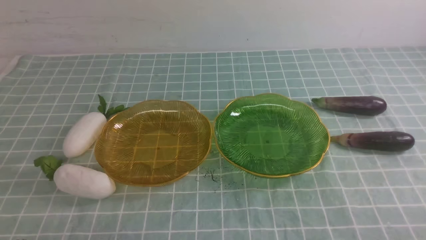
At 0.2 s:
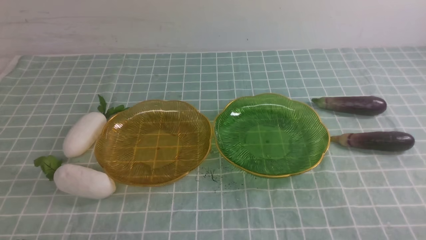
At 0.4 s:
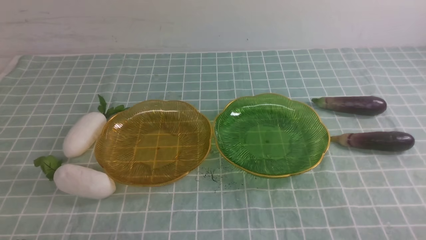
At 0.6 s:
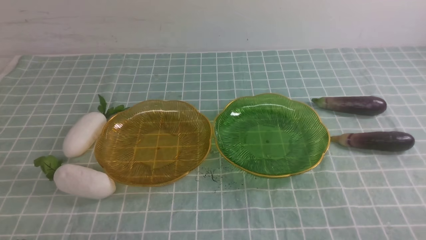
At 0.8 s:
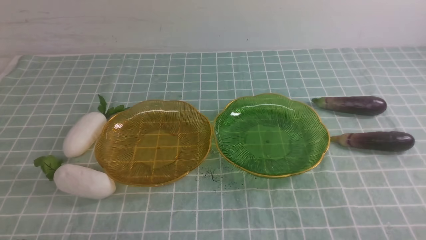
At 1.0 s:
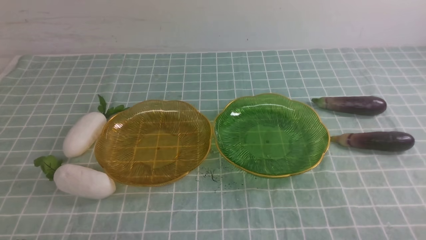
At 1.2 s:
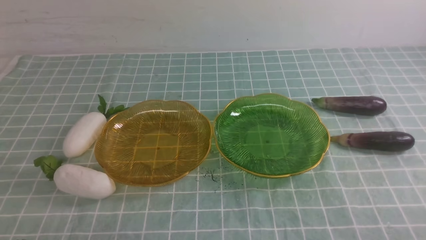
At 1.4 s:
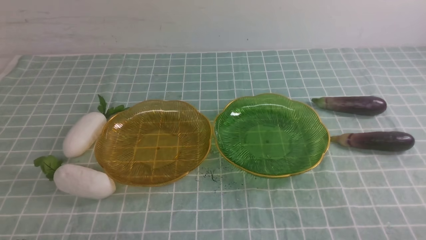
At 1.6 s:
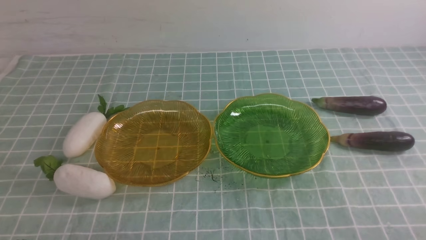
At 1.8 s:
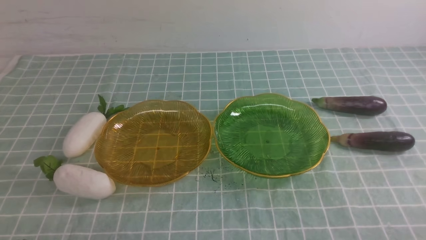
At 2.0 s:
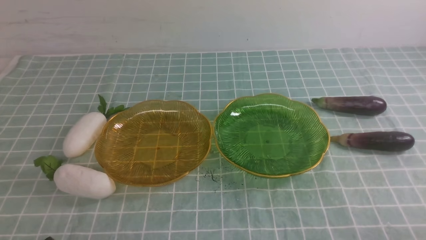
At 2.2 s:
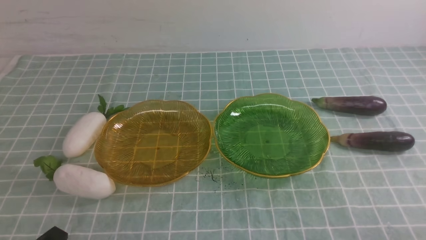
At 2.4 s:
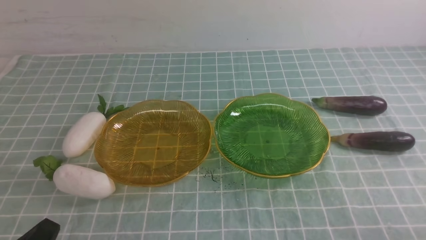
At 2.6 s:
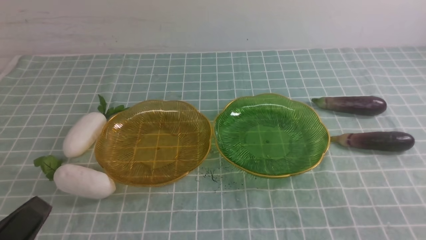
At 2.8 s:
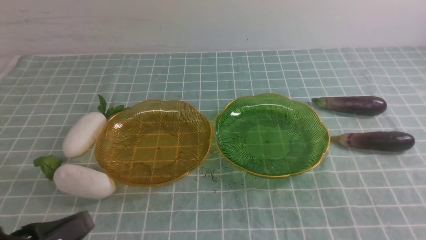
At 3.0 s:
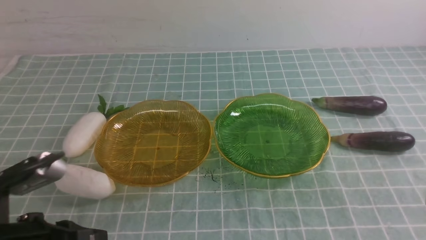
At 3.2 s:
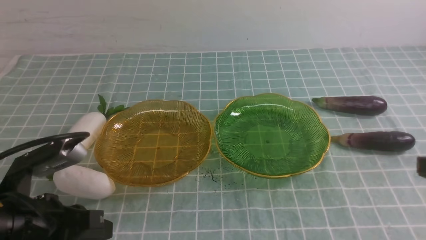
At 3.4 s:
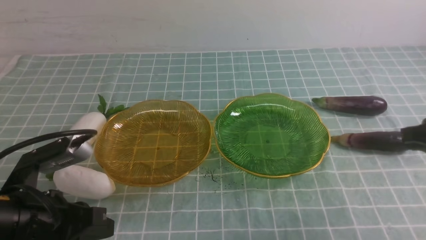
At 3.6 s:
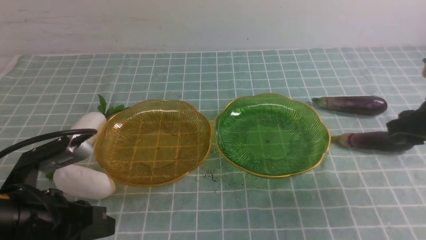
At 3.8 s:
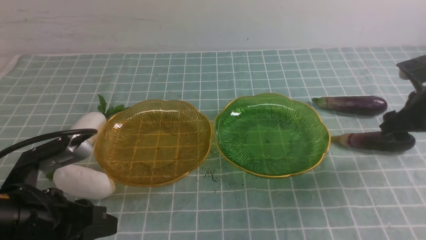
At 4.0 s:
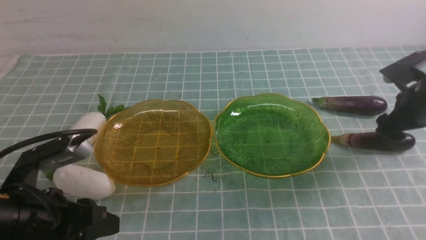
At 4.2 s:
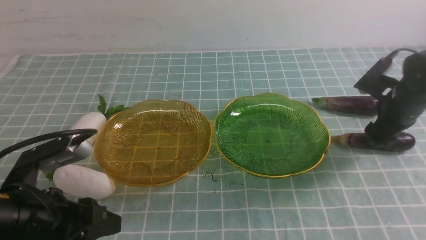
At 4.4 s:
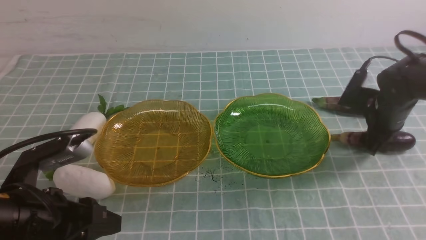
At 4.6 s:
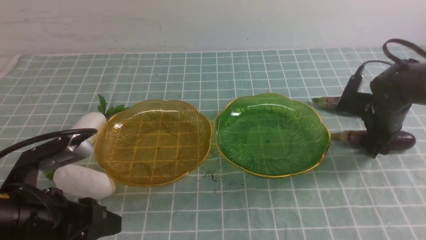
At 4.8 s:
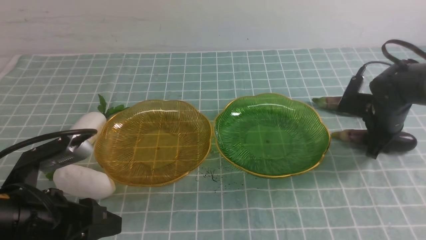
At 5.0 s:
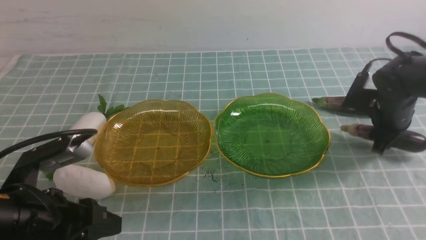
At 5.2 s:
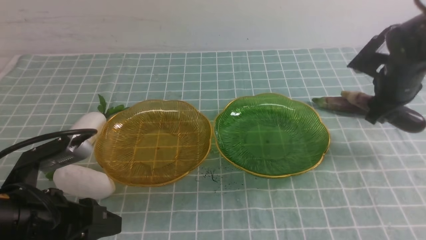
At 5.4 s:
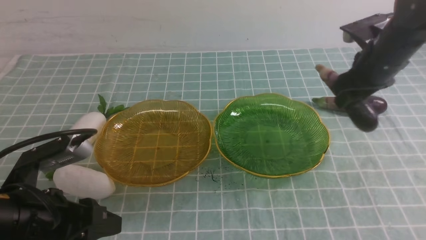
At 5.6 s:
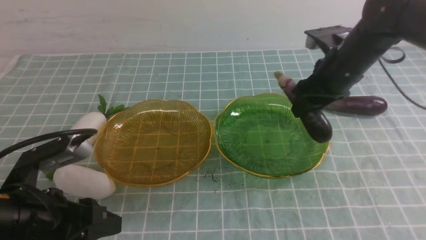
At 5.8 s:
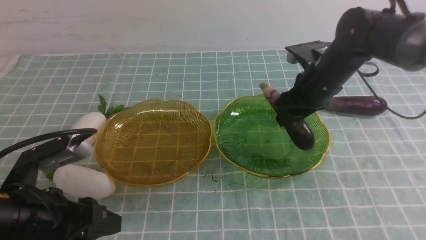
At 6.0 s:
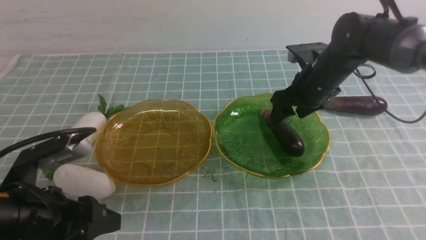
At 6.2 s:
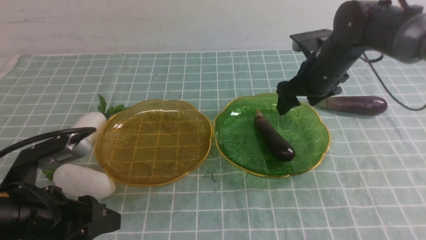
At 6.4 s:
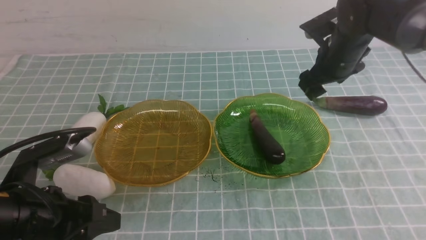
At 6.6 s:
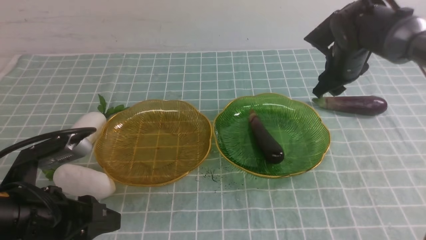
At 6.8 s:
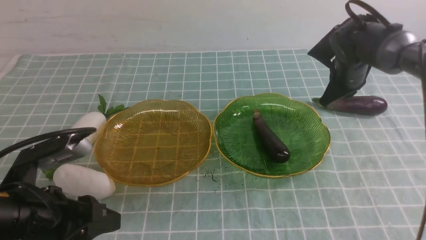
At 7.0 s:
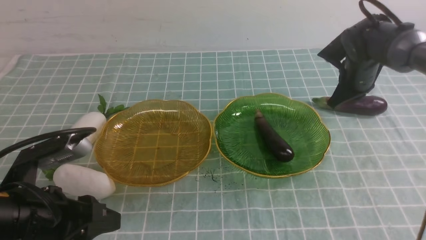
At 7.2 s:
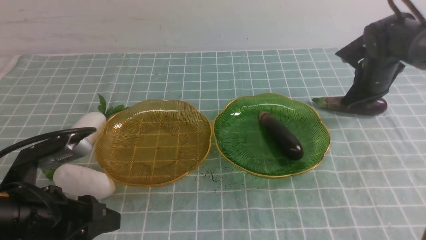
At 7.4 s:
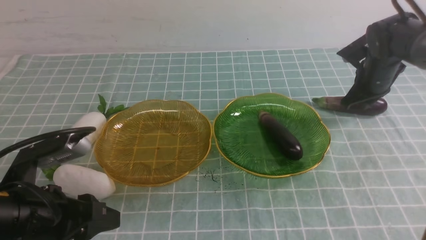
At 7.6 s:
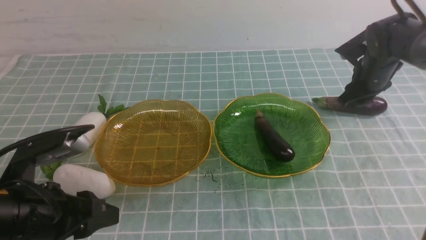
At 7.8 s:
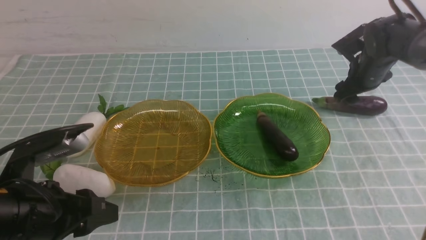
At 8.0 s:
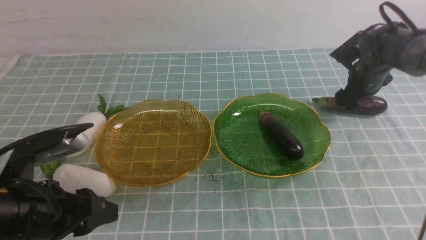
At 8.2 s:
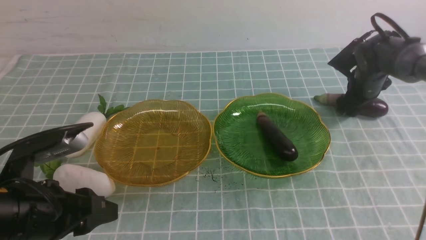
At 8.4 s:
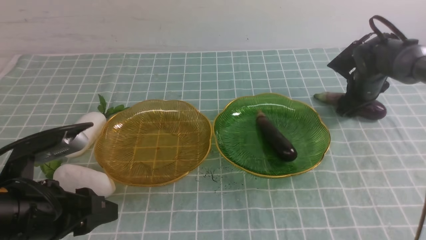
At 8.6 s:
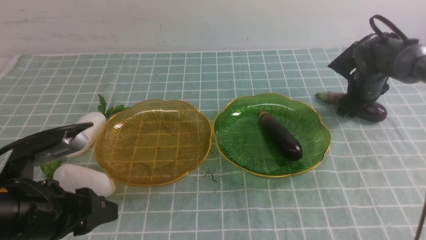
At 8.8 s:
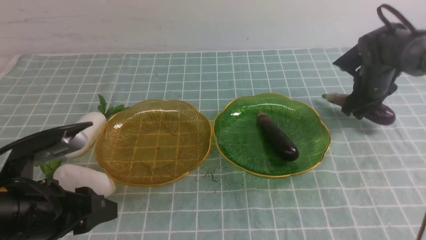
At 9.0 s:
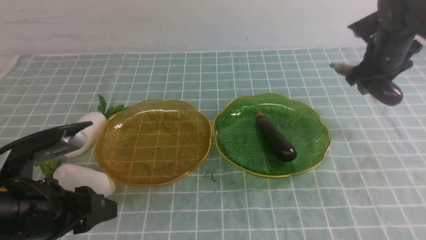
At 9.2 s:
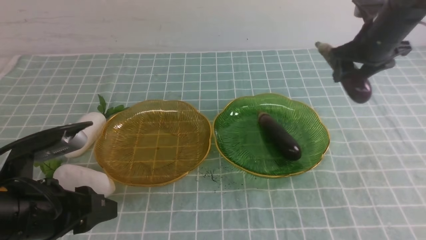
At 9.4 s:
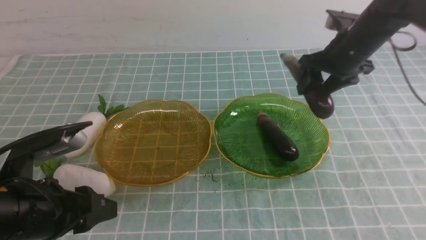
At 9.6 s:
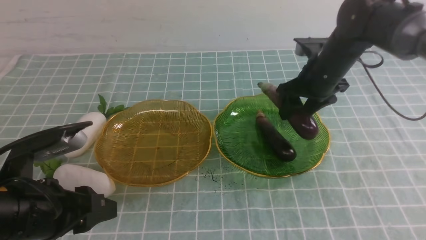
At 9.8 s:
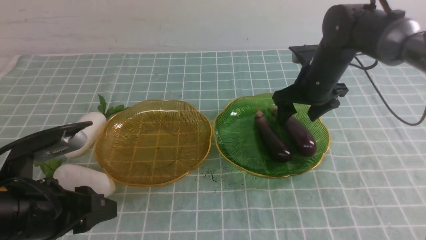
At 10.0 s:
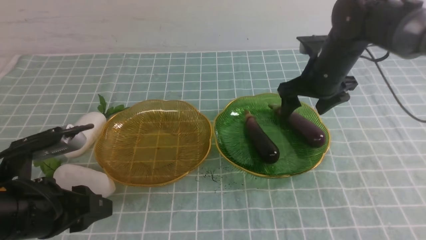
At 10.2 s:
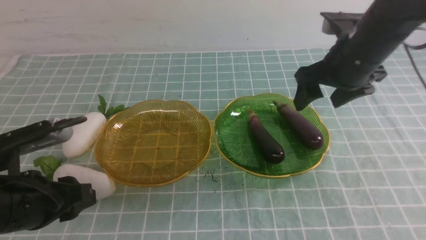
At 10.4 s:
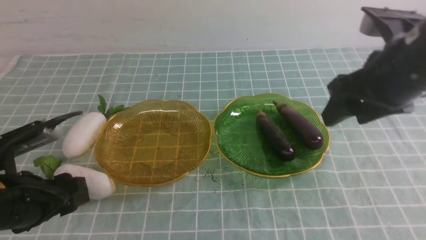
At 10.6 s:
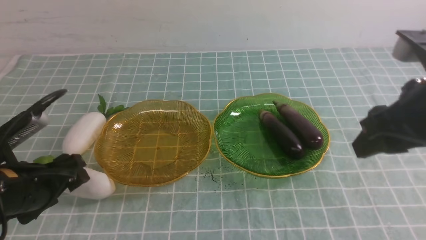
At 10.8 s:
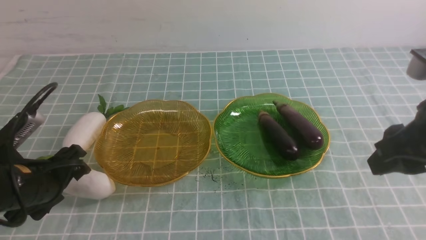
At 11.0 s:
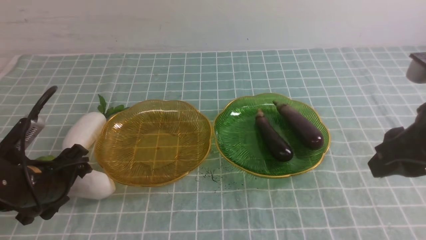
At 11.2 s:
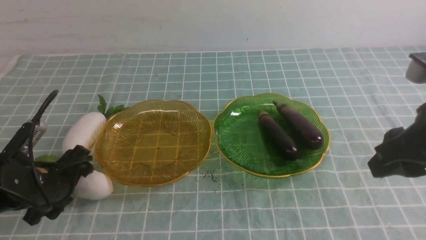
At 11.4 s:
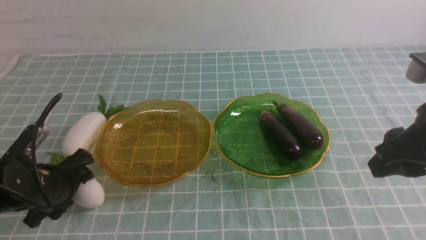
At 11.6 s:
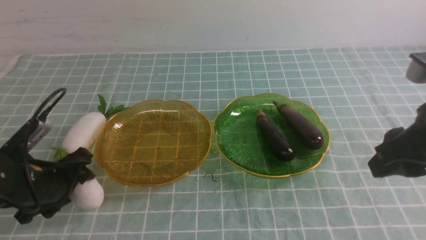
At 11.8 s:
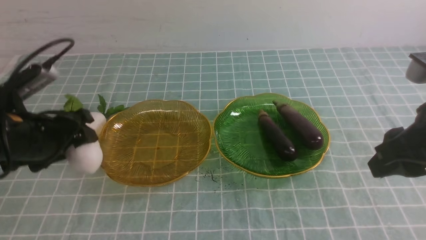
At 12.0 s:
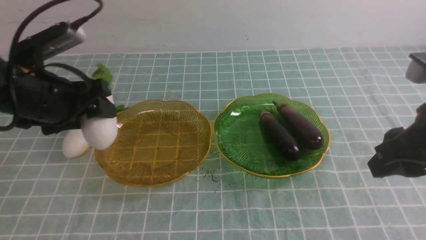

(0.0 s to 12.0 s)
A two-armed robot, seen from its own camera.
Step, 0.0 s - 9.8 s: use the right arm to grab an eggplant and put it into the right plate.
1.6 s - 3.0 s: The left gripper heads upward, covering about 10 cm.
3.0 s - 4.4 s: The right gripper travels forward by some 30 cm, and opens its fingers. Meanwhile the left gripper heads forward, covering some 5 cm, and opens its fingers.
4.4 s - 6.0 s: The right gripper heads to the left and upward, covering about 15 cm.
6.0 s - 7.6 s: The right gripper heads to the right and forward, covering some 15 cm, and closes up.
7.6 s - 9.0 s: The right gripper moves about 5 cm.
9.0 s - 10.4 s: The right gripper moves backward, upward and to the left, about 20 cm.
10.4 s - 12.0 s: The right gripper goes about 10 cm backward, while the left gripper shifts about 15 cm forward.

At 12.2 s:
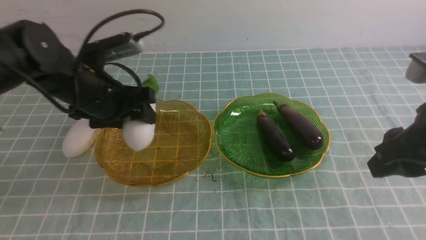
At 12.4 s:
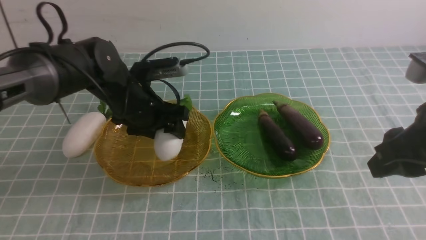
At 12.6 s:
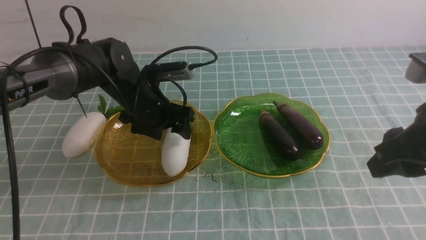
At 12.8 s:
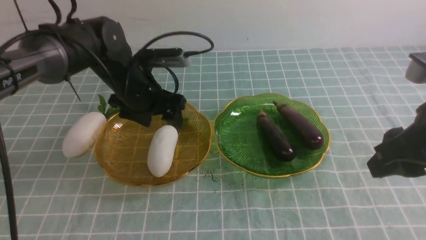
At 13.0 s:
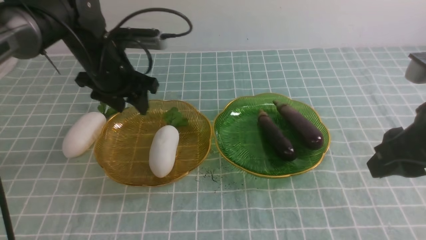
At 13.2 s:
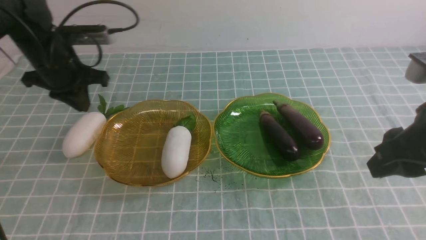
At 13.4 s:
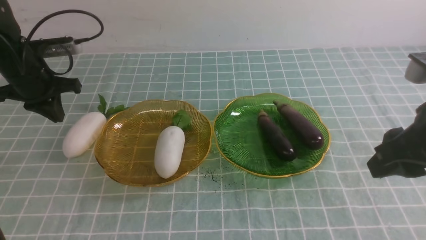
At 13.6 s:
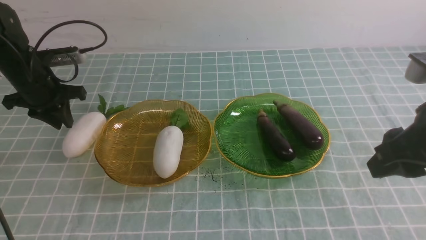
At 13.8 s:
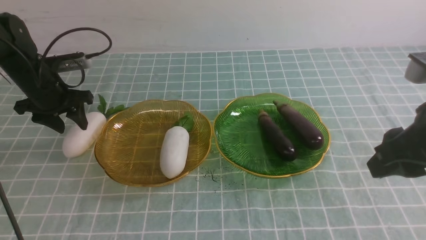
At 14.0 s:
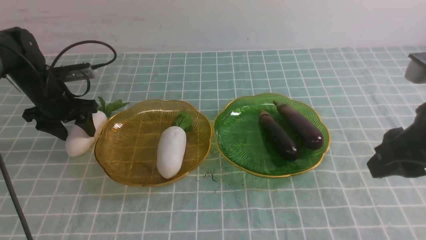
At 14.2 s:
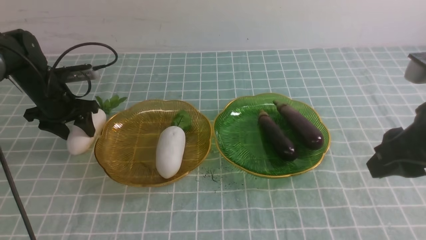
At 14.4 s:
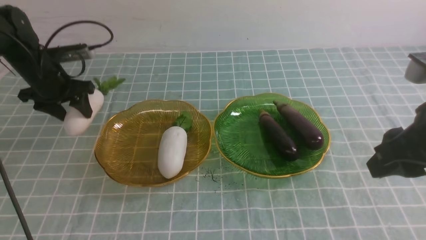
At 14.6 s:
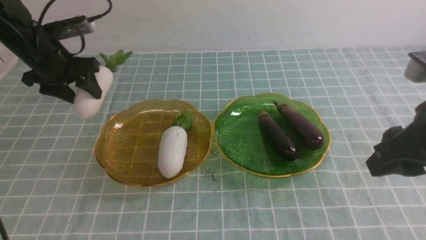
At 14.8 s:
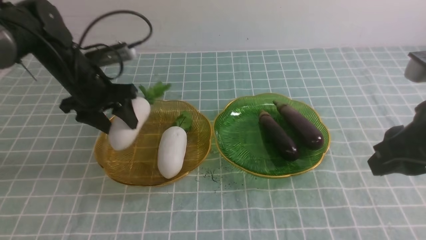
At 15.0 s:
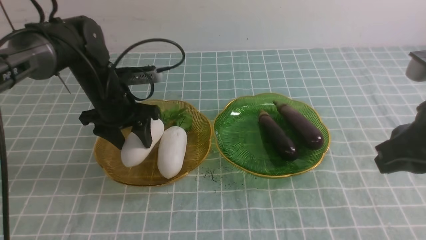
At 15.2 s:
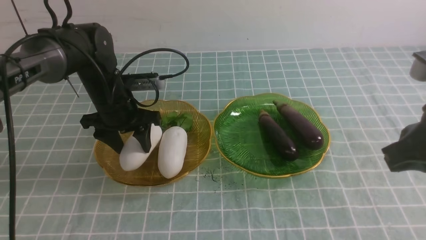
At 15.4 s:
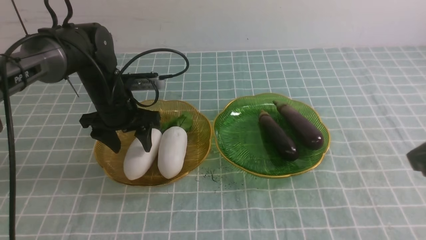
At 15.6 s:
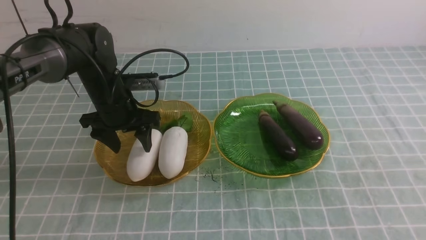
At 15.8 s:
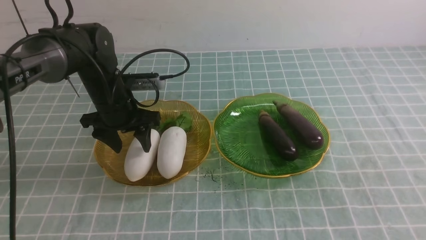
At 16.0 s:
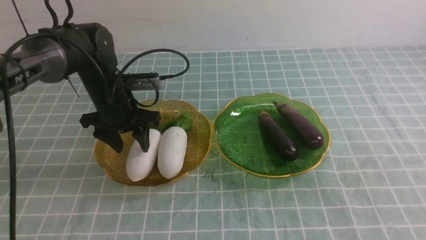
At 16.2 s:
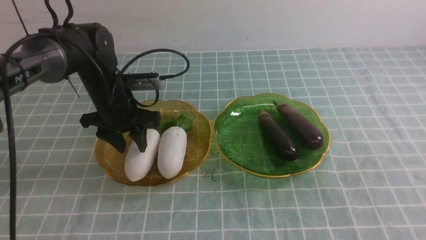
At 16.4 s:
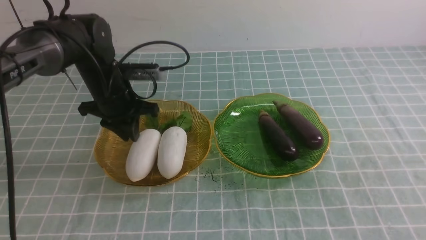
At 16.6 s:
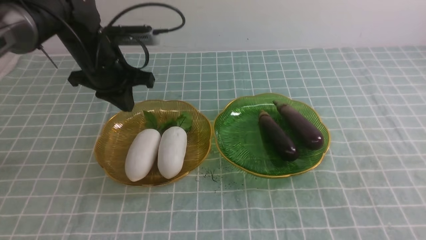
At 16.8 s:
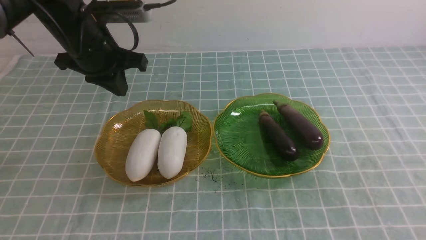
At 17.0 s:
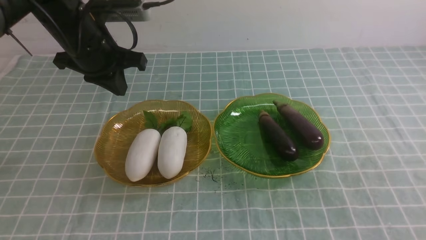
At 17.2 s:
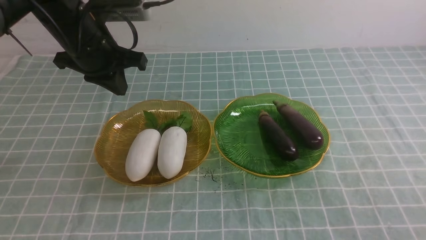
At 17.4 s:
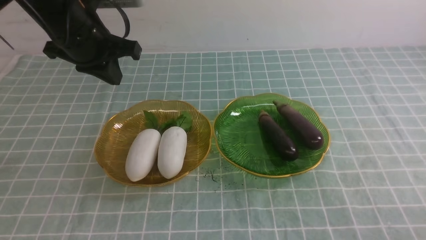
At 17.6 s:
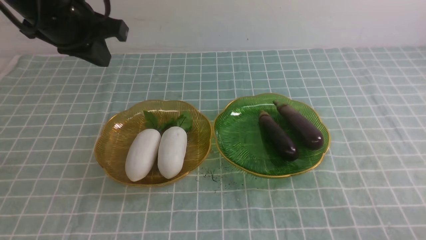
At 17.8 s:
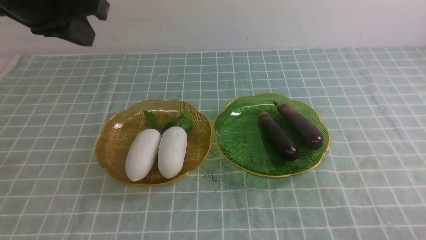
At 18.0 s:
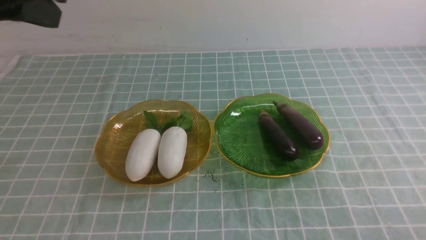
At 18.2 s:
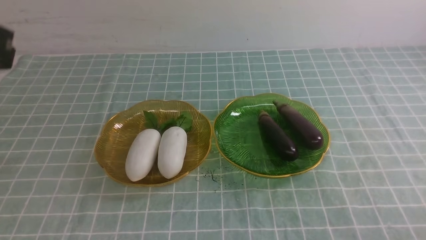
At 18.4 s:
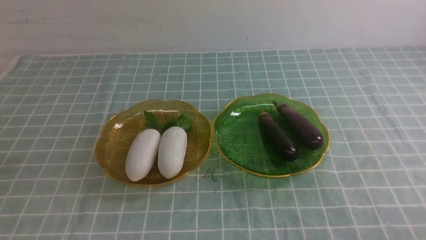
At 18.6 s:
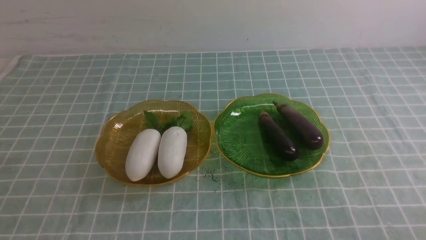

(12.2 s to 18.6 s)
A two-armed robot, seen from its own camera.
Step, 13.0 s - 15.8 s: use the right arm to grab a radish and put it into the left plate.
12.2 s - 13.8 s: The left gripper travels to the left and forward by some 20 cm, and closes and opens again.
13.8 s - 15.4 s: The right gripper is displaced backward by approximately 10 cm, and closes its fingers. The left gripper goes approximately 15 cm to the right.
15.4 s - 17.0 s: The left gripper travels upward by about 10 cm, and closes up, while the right gripper is displaced downward and backward by roughly 15 cm.
17.0 s - 18.6 s: The left gripper shifts roughly 35 cm backward.
